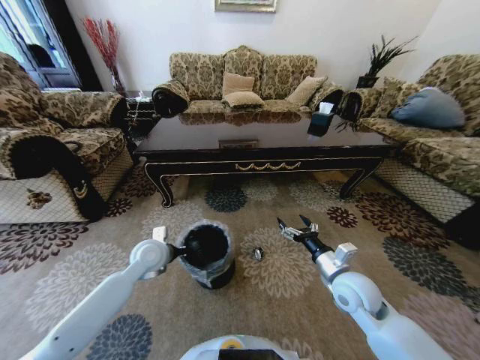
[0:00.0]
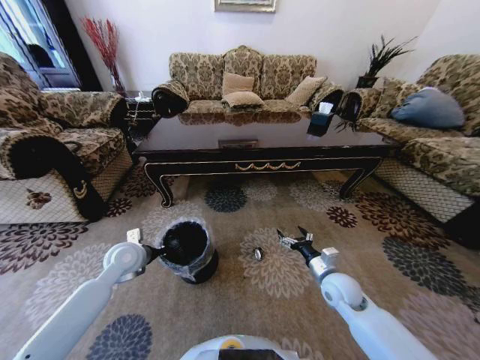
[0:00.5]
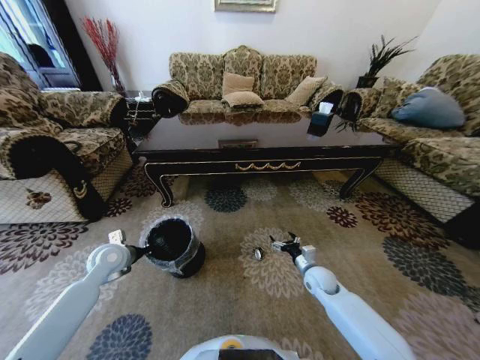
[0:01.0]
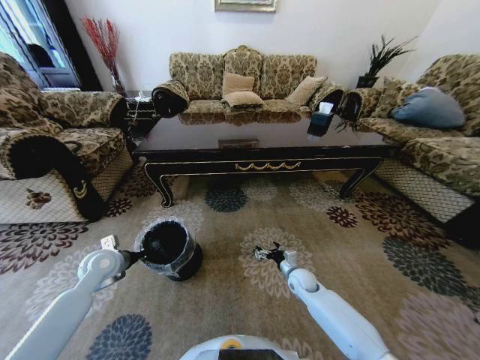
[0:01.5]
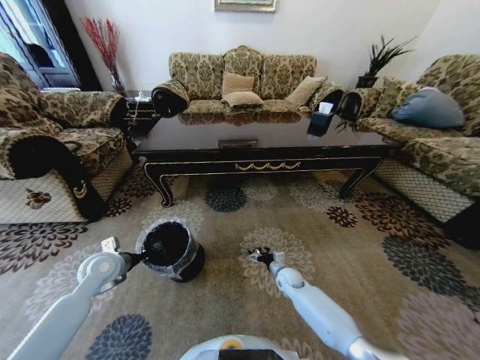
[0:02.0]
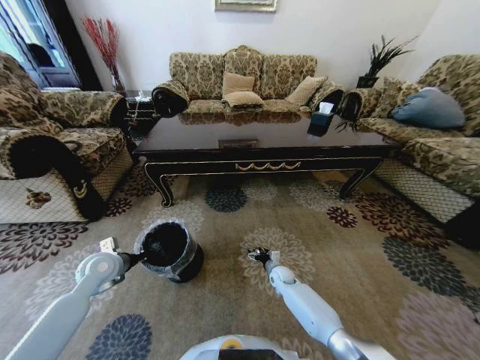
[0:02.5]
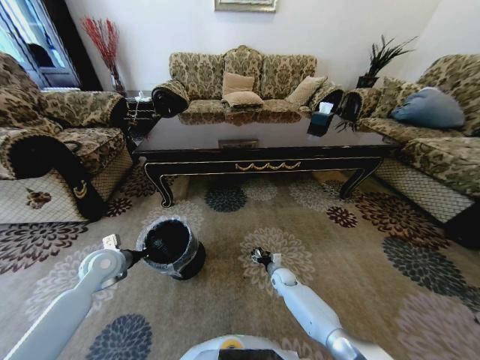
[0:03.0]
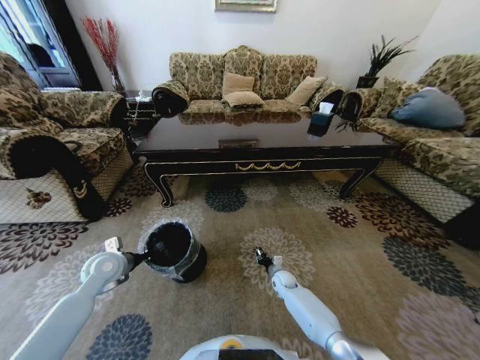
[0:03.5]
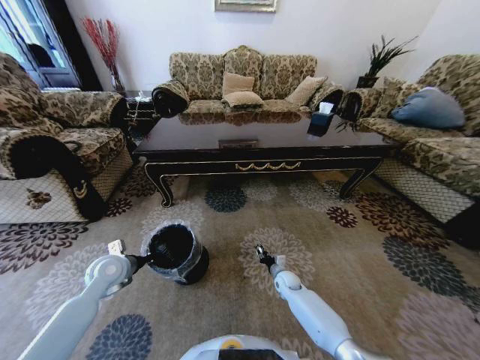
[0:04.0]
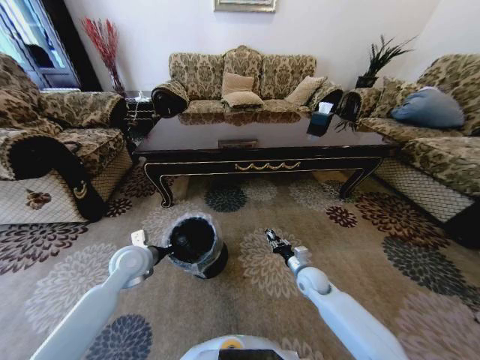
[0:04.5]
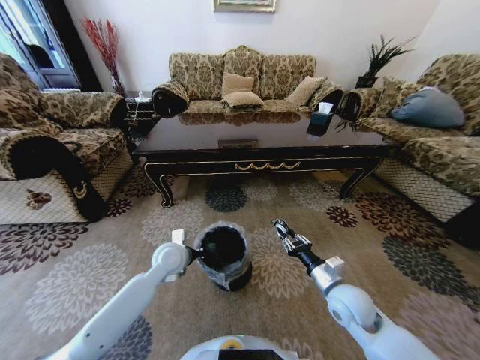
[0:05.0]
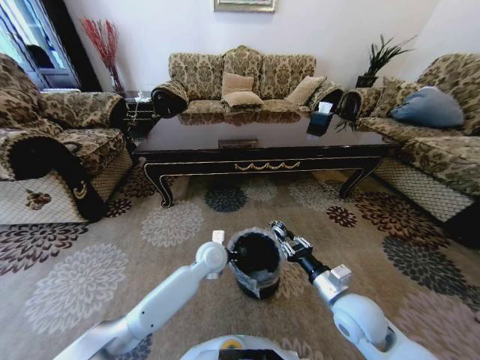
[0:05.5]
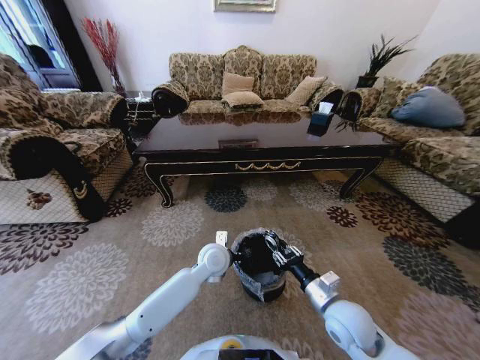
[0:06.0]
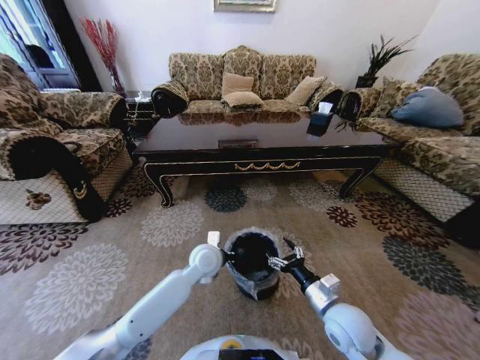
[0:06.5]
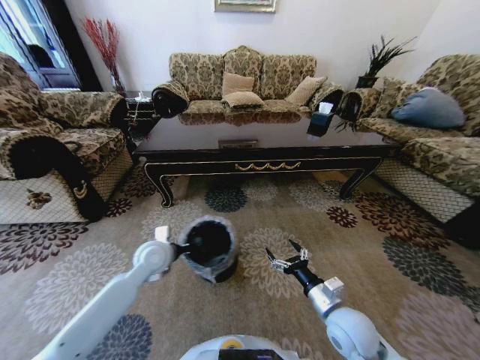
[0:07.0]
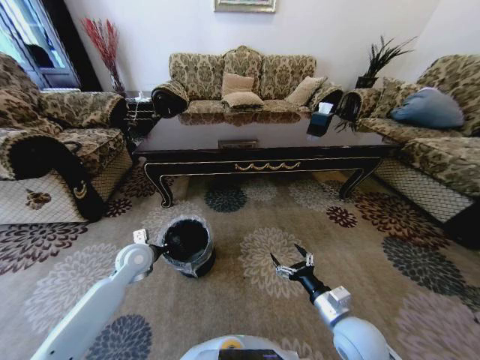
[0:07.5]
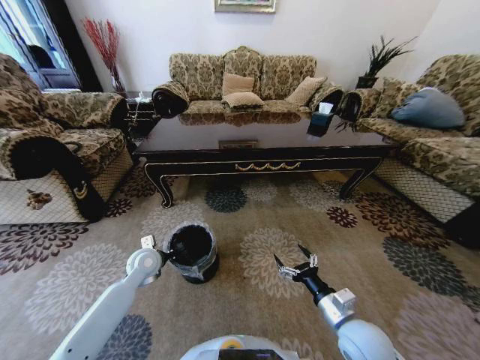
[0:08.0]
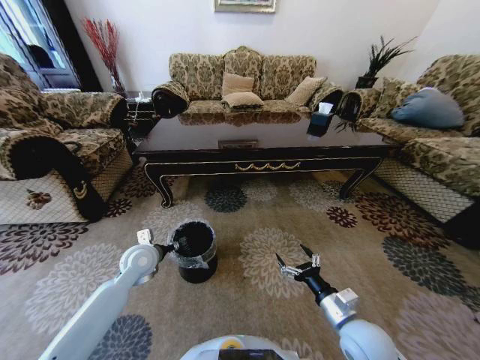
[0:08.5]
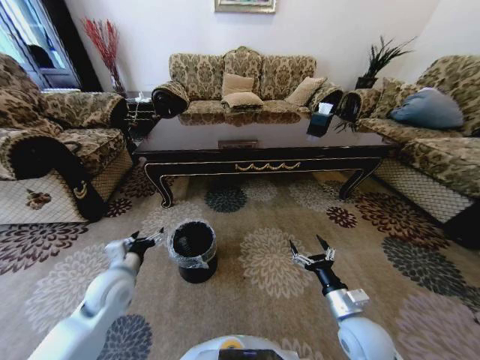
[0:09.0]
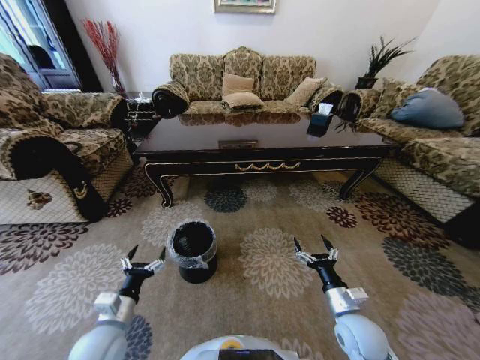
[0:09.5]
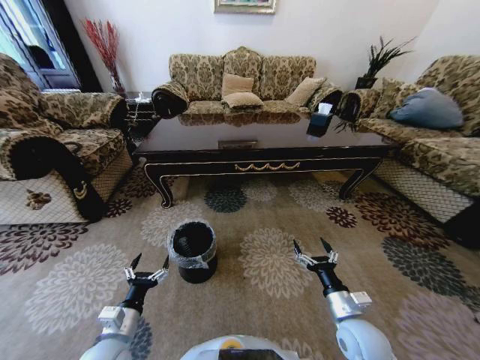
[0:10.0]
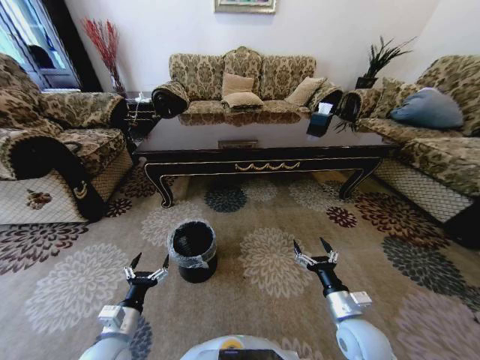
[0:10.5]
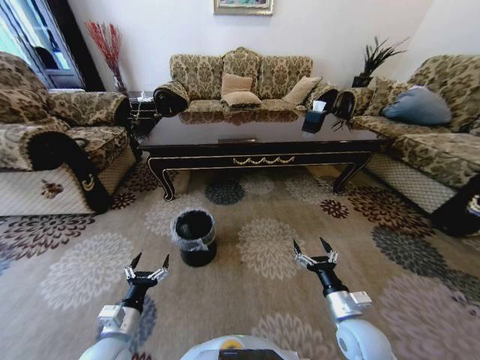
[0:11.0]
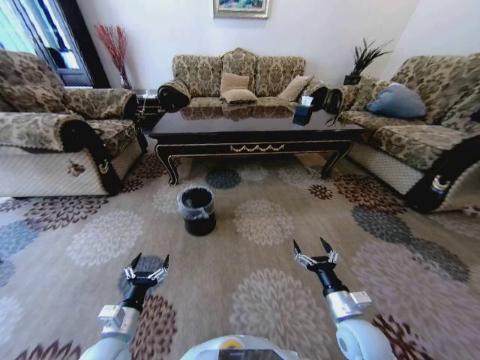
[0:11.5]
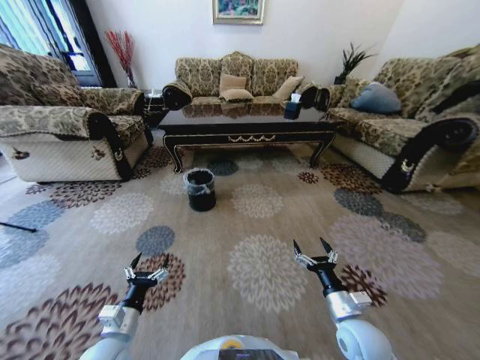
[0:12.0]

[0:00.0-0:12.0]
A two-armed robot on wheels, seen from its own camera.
Task of the whole recording: Move to the front of the table and pick up the trash from the floor, then place it into the trash bin.
0:00.0 to 0:02.0: The left gripper heads to the left, covering roughly 15 cm; the right gripper is displaced downward and forward by some 25 cm.
0:02.0 to 0:04.0: The right gripper closes up.
0:04.0 to 0:06.0: The right gripper goes about 30 cm upward and backward; the left gripper heads to the right, covering some 30 cm.
0:06.0 to 0:08.0: The left gripper goes about 20 cm to the left; the right gripper opens.
0:08.0 to 0:10.0: The left gripper travels backward by approximately 20 cm, and opens up.

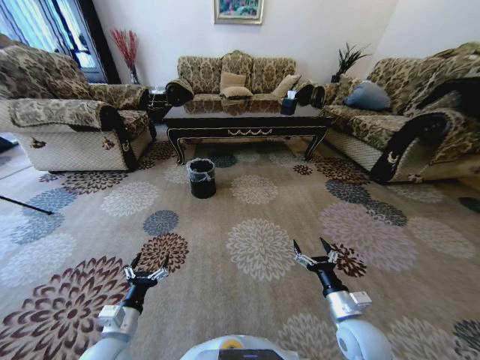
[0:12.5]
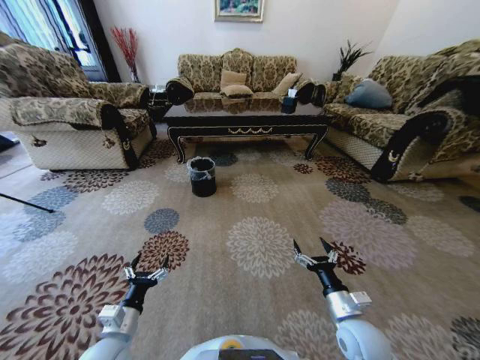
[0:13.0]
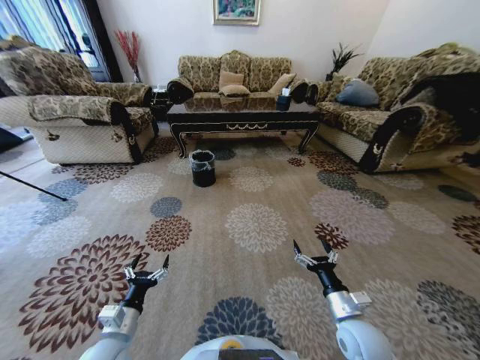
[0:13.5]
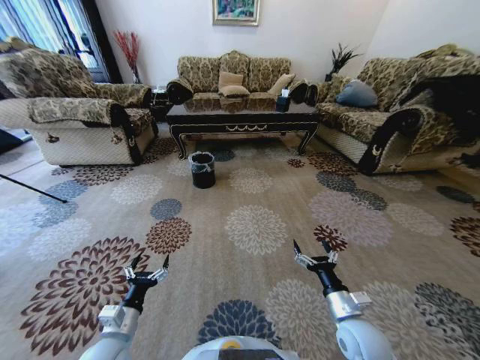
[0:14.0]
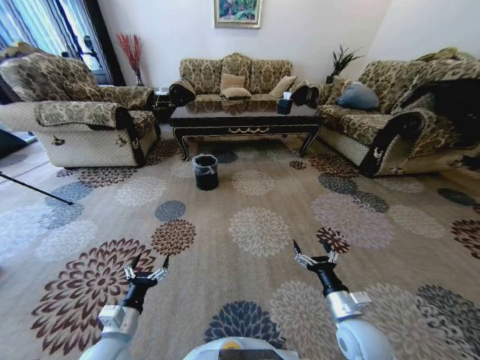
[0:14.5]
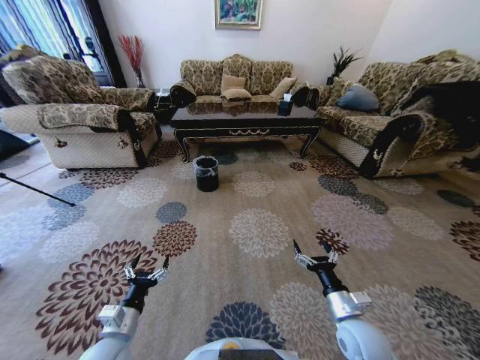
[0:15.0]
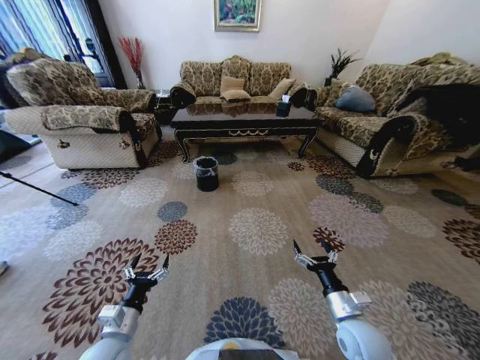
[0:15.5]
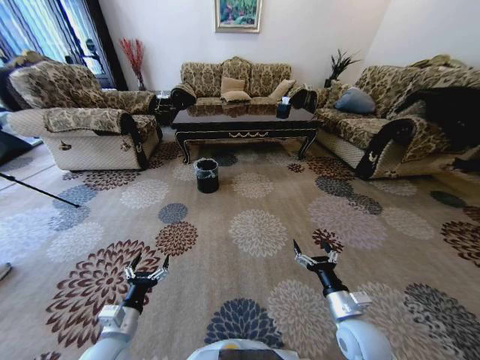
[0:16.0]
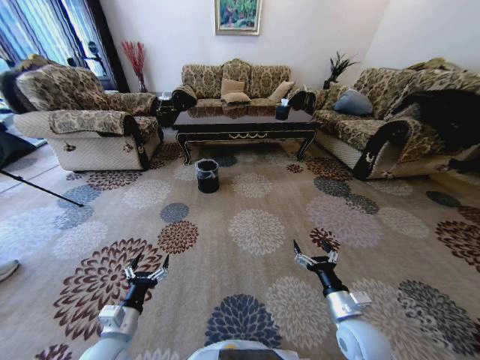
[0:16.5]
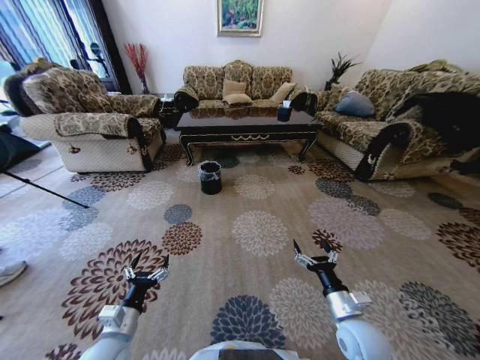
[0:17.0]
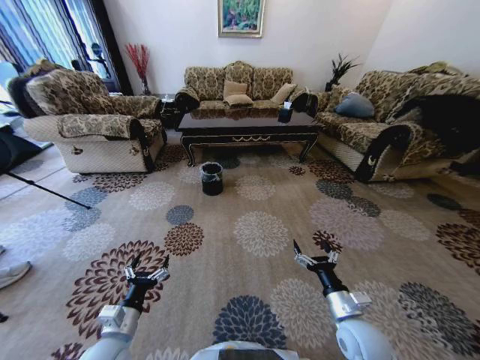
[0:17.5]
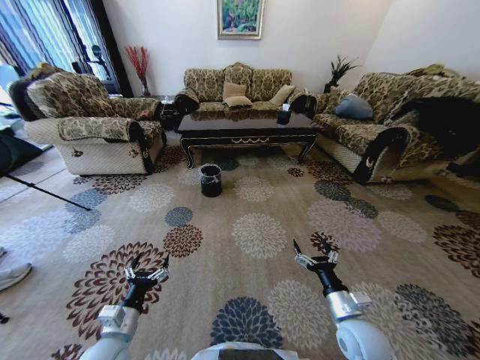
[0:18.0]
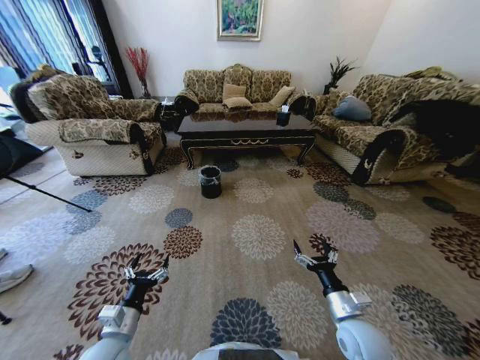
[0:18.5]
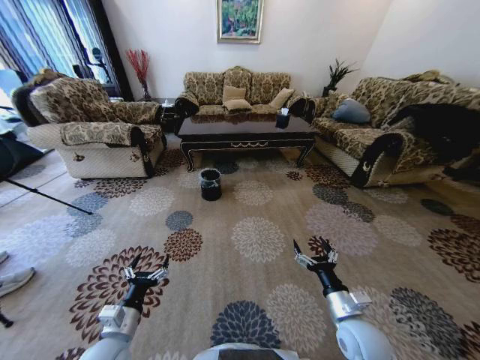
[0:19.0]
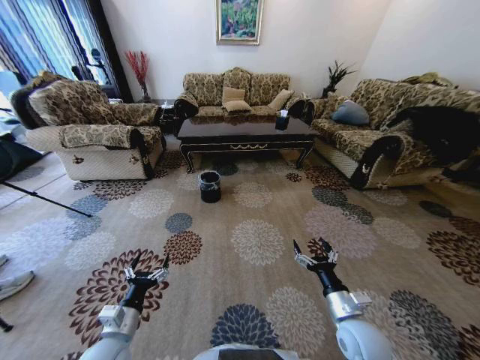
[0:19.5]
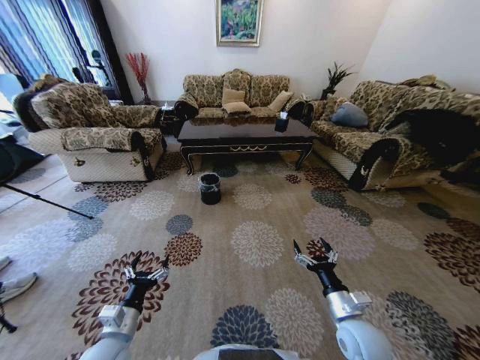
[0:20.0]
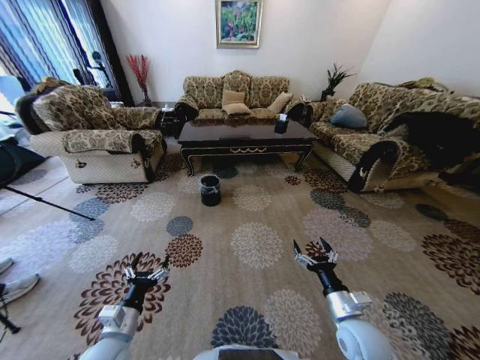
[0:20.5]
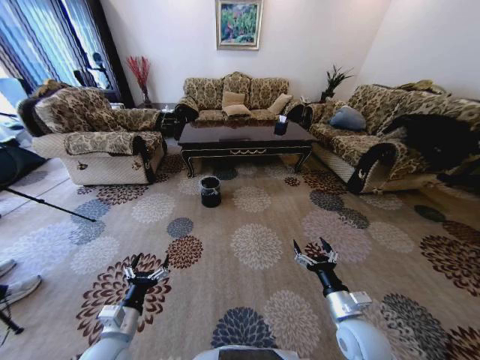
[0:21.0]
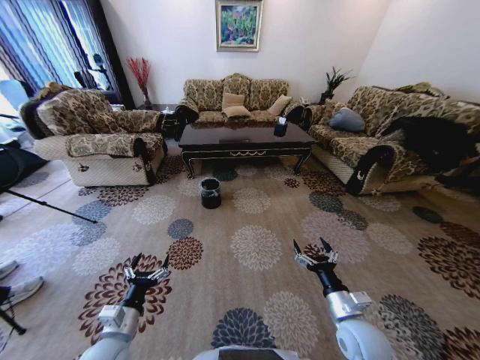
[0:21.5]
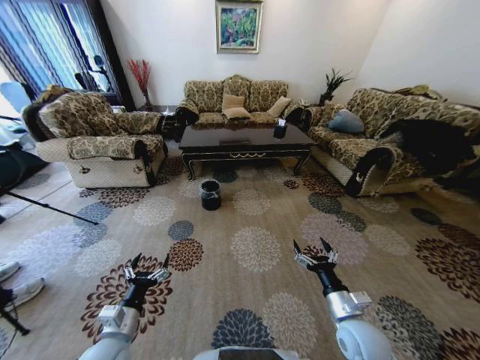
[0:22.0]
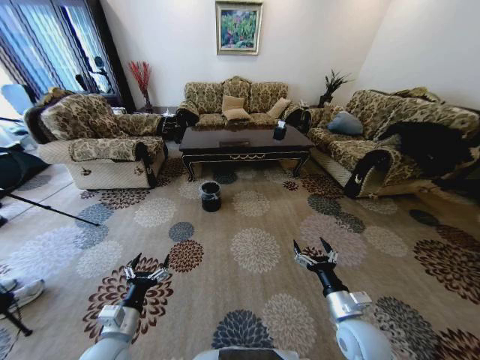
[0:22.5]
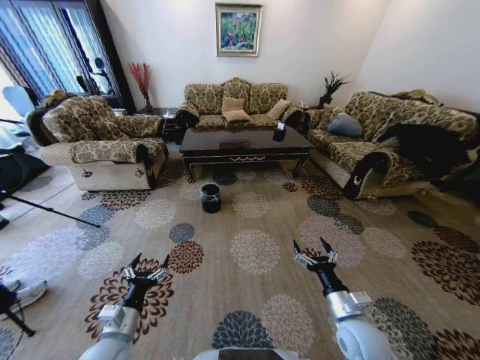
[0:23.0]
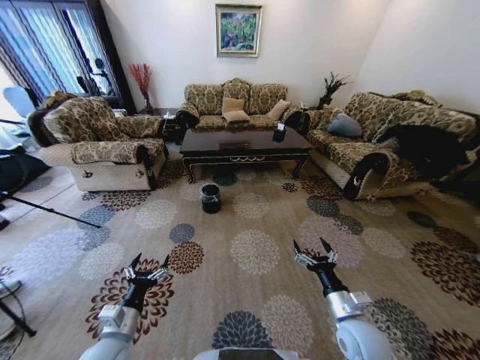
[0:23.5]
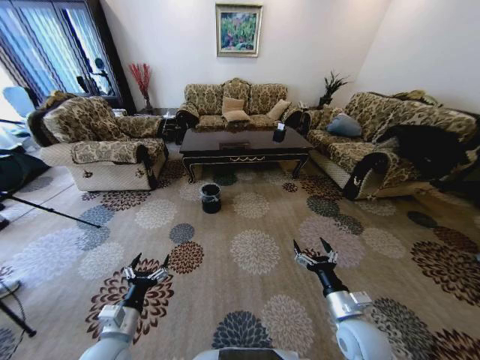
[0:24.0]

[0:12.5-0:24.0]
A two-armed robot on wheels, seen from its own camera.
Task of the whole recording: Move to the front of the table and pick up the trash from the floor, then place it into the trash bin.
0:22.0 to 0:24.0: The two grippers keep their place.
